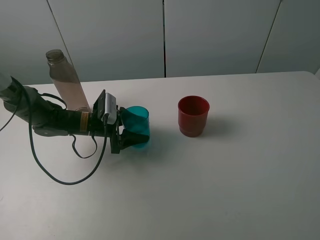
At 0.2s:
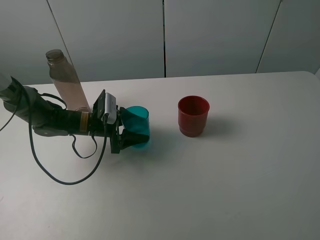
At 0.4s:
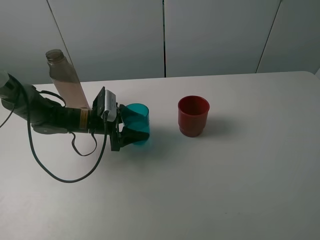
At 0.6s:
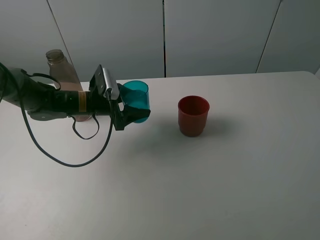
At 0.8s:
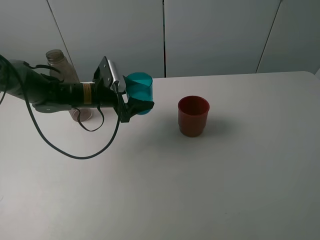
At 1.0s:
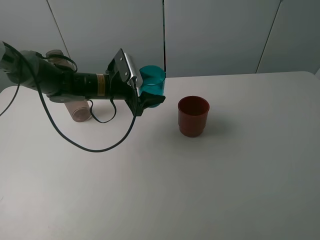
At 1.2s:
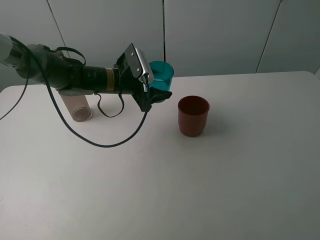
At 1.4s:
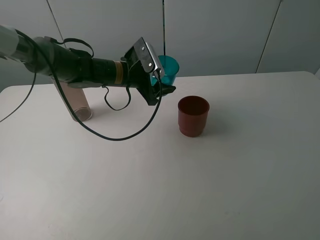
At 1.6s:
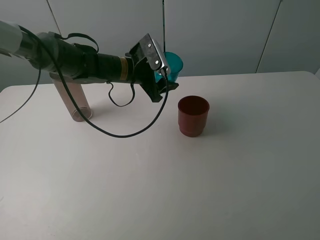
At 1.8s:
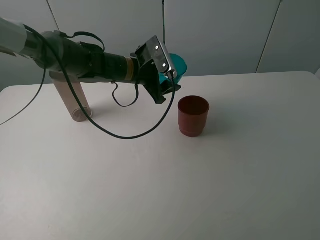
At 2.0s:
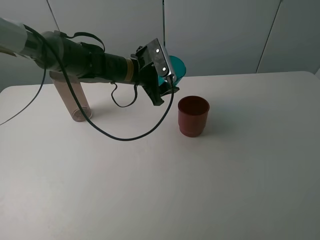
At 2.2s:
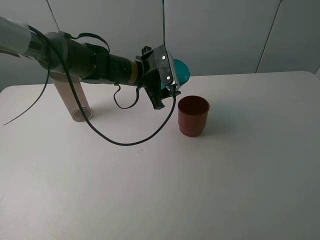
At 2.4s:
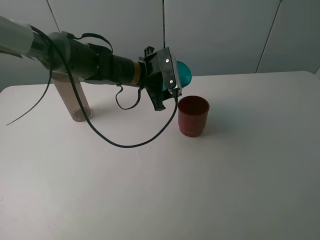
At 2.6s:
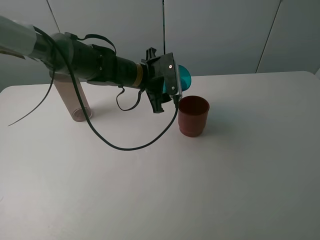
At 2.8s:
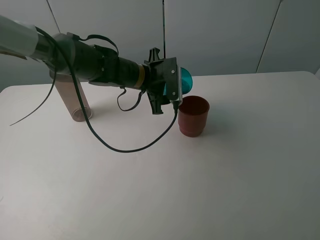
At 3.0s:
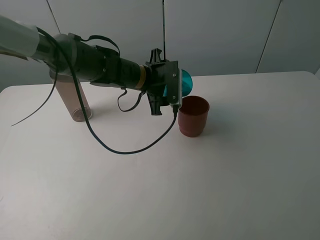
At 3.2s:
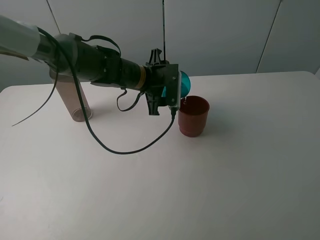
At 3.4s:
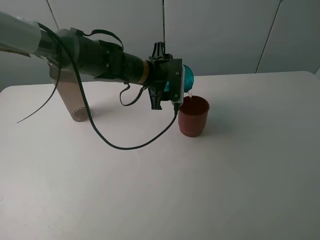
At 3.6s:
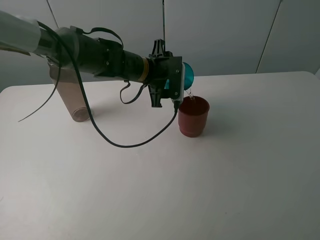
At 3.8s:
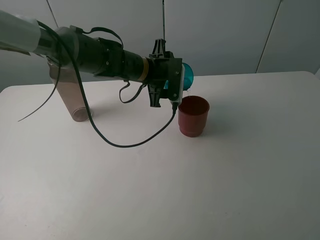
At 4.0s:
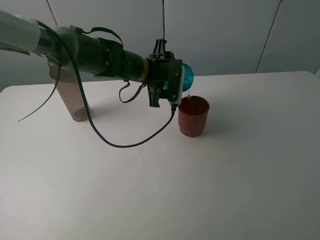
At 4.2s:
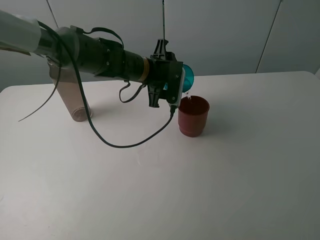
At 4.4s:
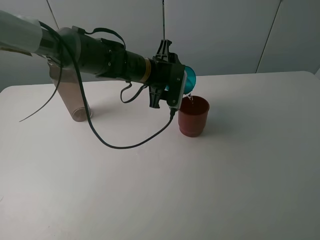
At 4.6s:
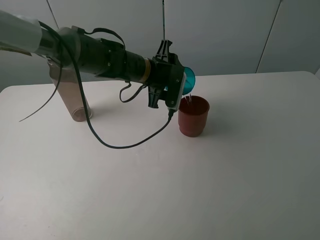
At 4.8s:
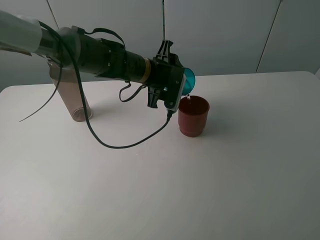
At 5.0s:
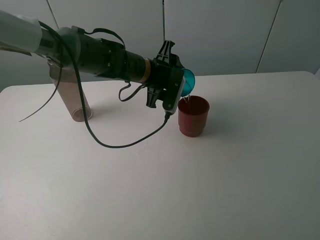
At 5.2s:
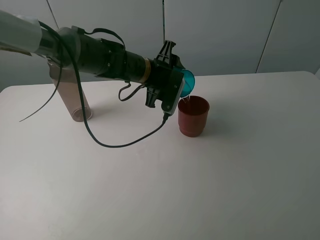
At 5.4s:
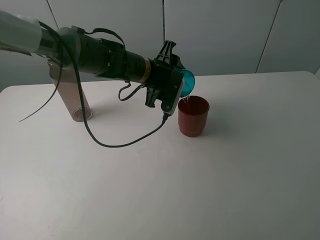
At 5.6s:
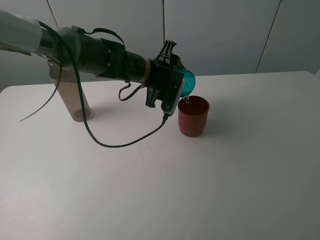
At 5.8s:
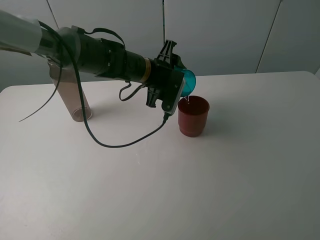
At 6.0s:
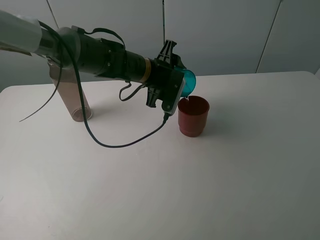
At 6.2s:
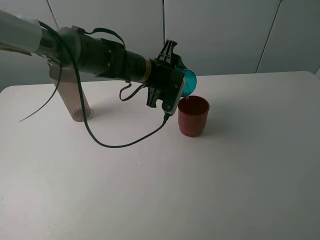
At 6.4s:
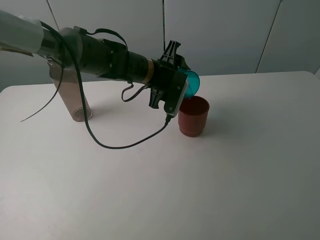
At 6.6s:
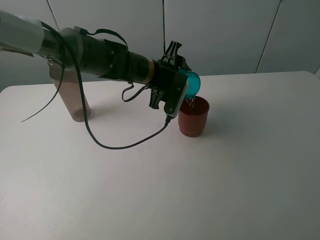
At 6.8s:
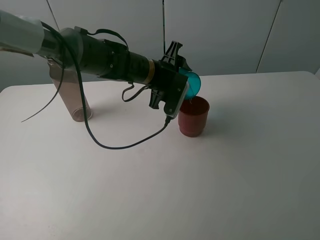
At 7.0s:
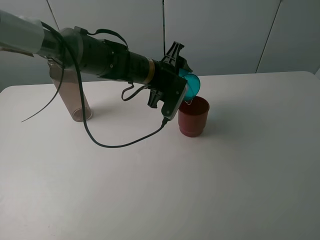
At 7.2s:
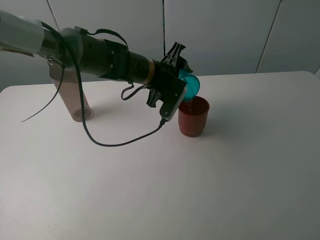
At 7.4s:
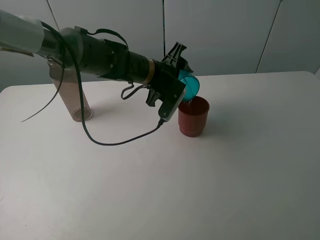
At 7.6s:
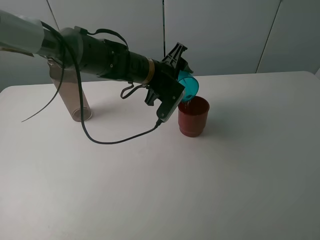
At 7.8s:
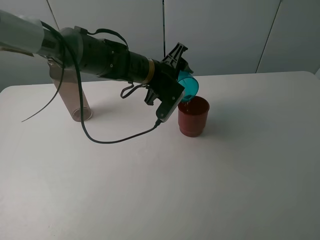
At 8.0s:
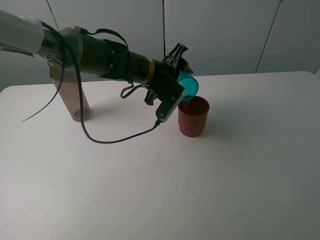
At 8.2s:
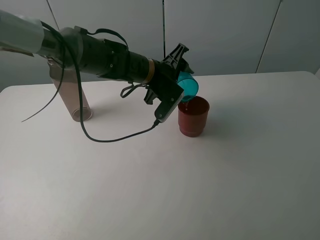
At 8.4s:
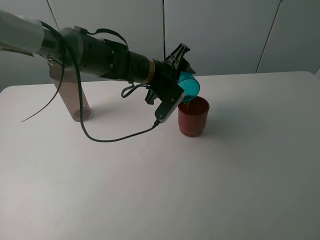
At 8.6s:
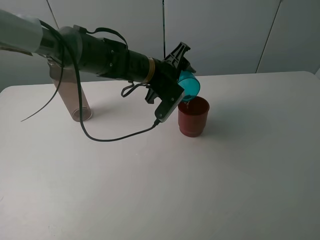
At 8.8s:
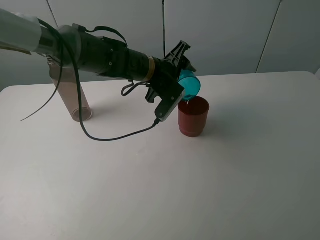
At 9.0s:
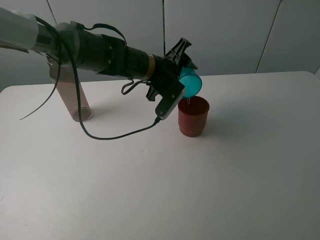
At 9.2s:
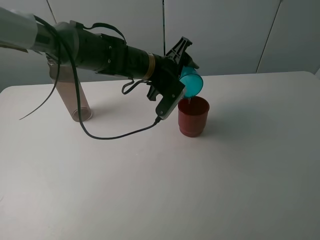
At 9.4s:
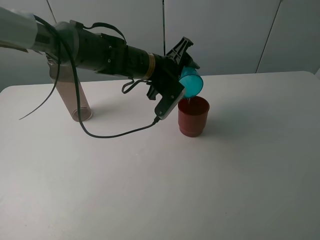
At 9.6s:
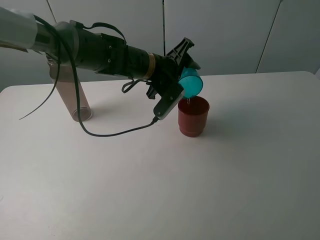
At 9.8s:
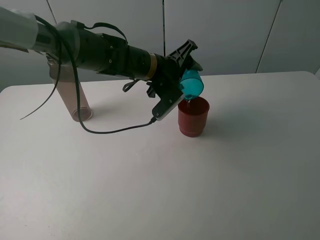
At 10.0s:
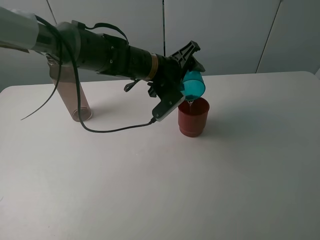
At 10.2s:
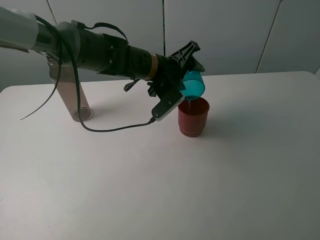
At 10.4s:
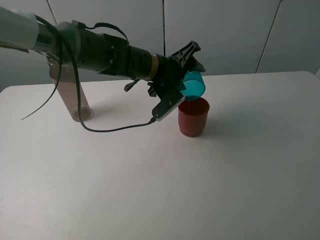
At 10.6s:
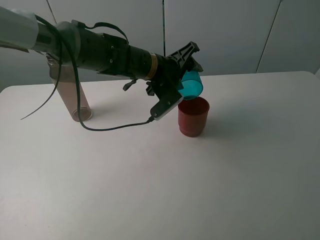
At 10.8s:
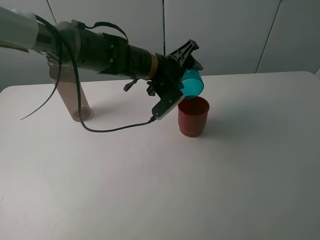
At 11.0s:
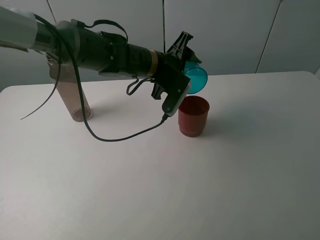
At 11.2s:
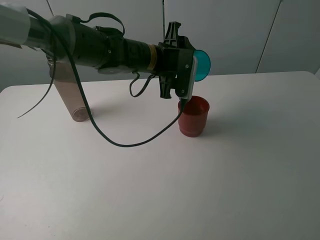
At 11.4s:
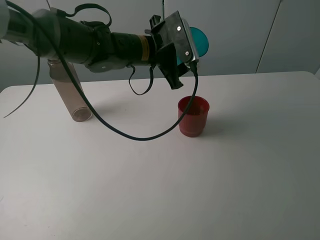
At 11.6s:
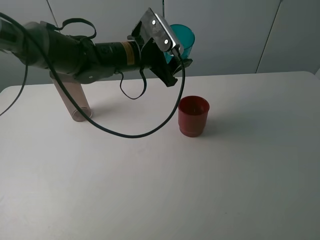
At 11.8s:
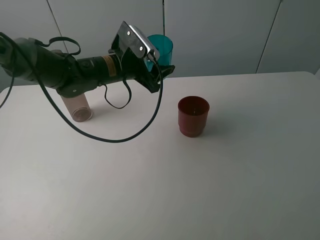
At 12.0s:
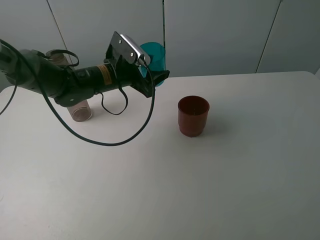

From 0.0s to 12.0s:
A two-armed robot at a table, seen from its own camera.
Task of the whole recording: pick up the bottle and pour water into the cup, then pick up the cup containing water and pour it into another cup.
Step, from 0.0s to 11.0s: Pour water from blue cup to red cup with the left gripper.
From 0.0s to 1.6s: The left gripper is displaced upward, to the right and forward by some 15 cm.
From 3.0s to 4.4s: The grippers move only a little.
From 4.4s to 6.0s: The grippers stay close to where they were, moving slightly.
From 6.0s to 7.6s: The grippers make only small movements.
From 7.6s to 10.4s: There are only small adjustments of the grippers.
From 10.4s to 12.0s: The left gripper travels to the left by approximately 10 cm.

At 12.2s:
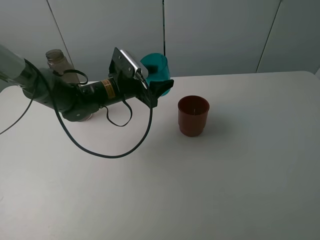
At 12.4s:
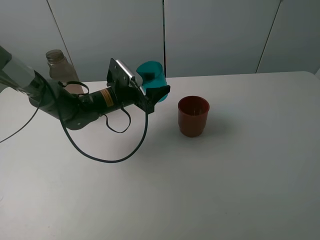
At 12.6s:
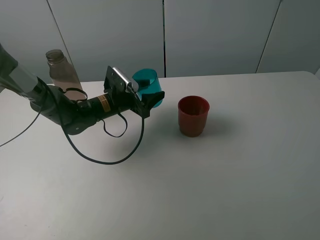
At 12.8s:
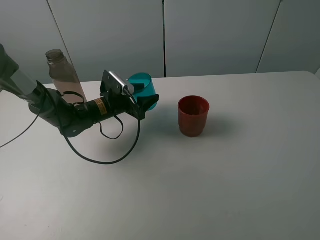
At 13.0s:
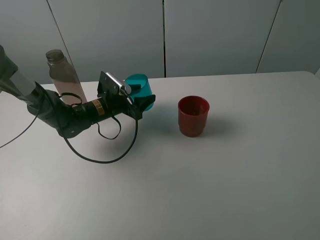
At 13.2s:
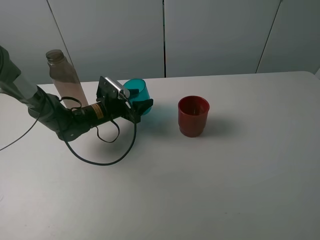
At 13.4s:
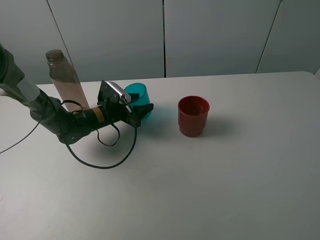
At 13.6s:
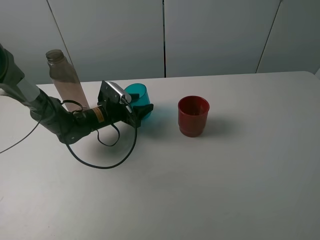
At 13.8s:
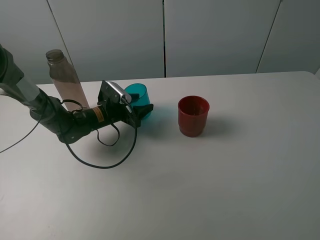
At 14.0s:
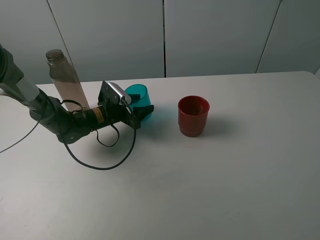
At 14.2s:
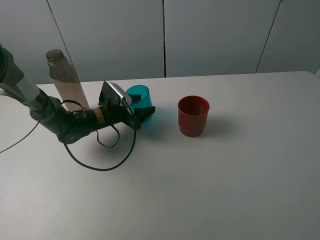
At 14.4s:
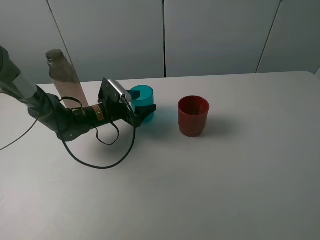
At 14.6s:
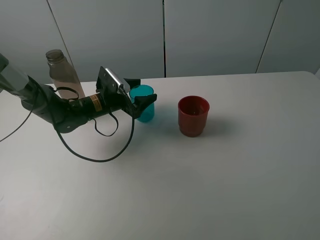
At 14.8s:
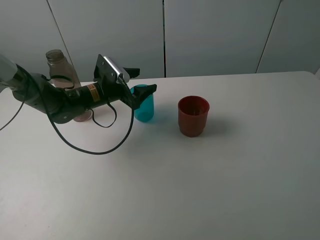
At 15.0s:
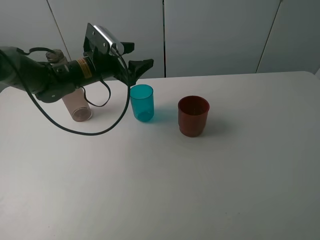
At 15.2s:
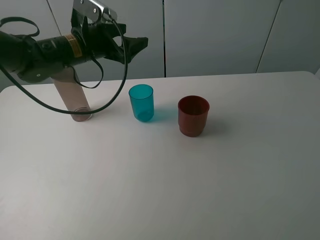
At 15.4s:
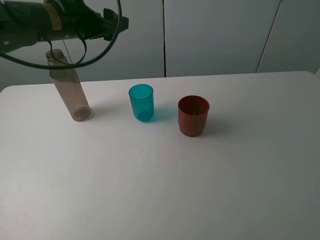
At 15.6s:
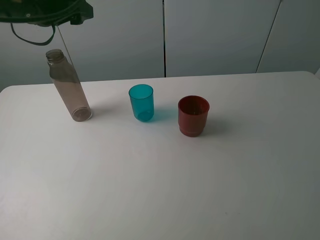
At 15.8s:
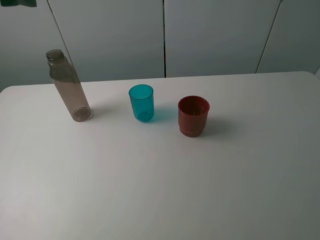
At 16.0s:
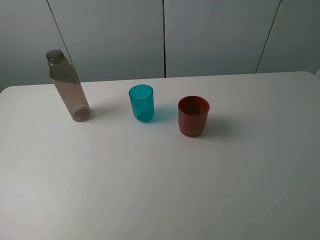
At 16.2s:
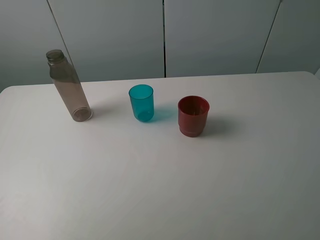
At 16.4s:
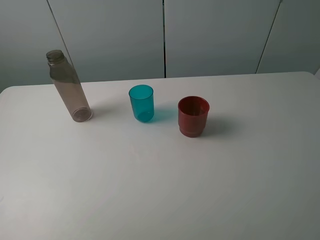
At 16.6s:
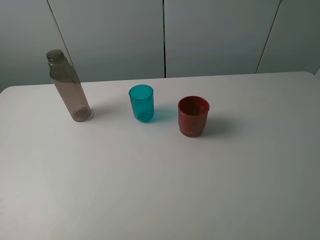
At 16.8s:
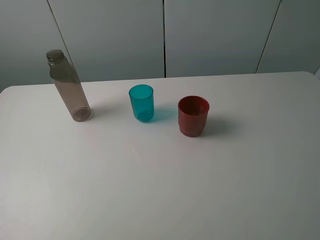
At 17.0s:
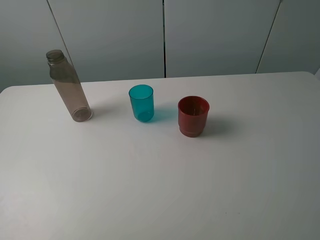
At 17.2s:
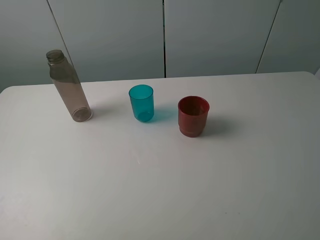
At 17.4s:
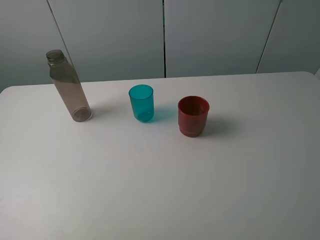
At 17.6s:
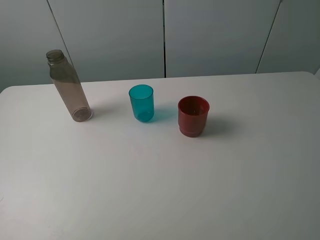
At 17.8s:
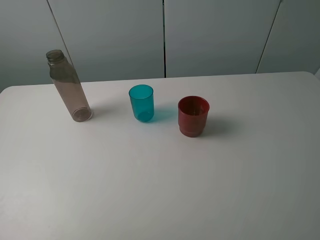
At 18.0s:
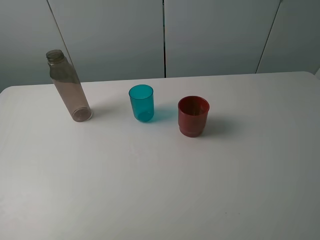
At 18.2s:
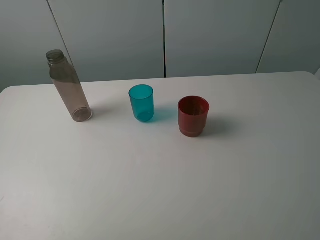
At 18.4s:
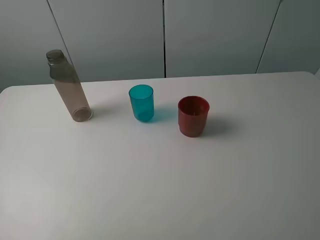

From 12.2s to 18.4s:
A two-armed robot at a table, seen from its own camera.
Task of the whole recording: pick up the bottle and pour water into the cup, then pick up the cup containing water and pour it into another cup.
Step, from 12.2s to 14.8s: Place the blue cup with the left gripper.
From 12.2s to 13.8s: The left gripper goes some 10 cm downward.
From 13.8s to 15.4s: The left gripper is displaced upward by approximately 25 cm, and opens its fingers.
From 15.4s to 16.8s: The left gripper is displaced backward by about 40 cm.

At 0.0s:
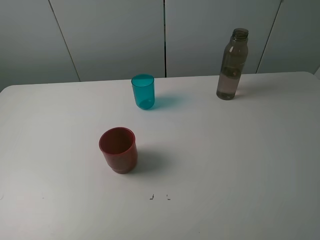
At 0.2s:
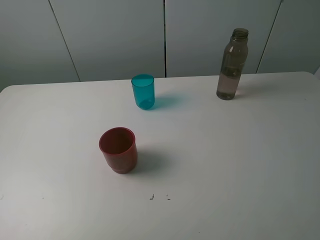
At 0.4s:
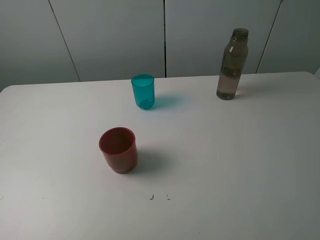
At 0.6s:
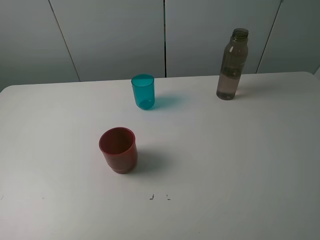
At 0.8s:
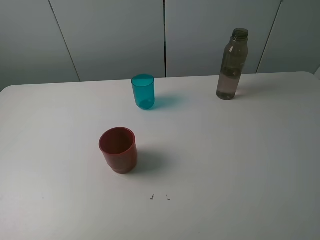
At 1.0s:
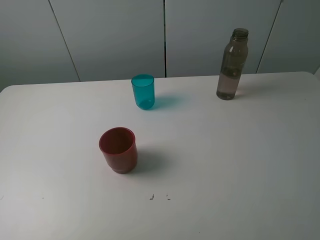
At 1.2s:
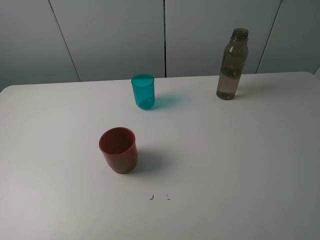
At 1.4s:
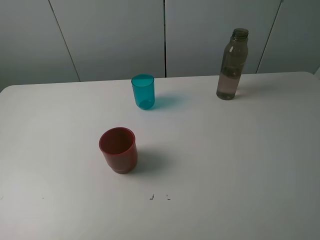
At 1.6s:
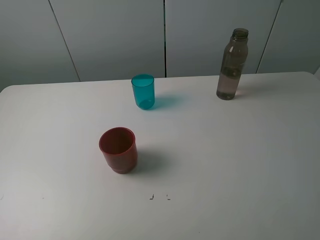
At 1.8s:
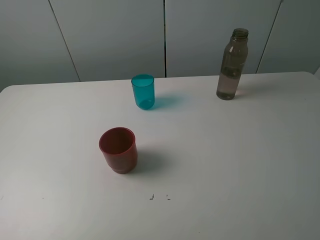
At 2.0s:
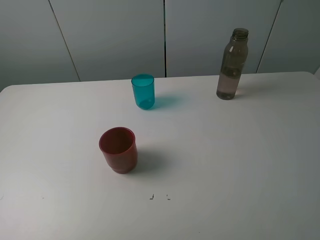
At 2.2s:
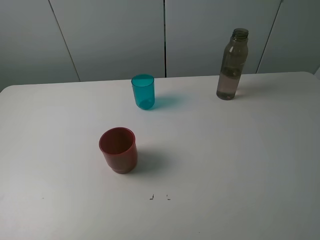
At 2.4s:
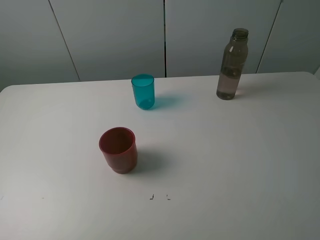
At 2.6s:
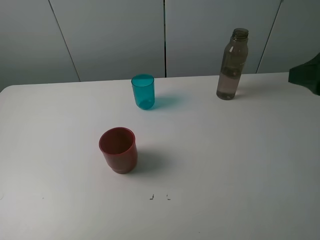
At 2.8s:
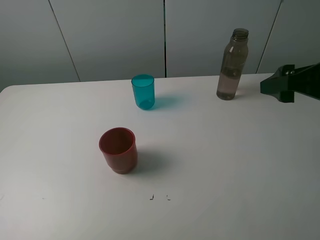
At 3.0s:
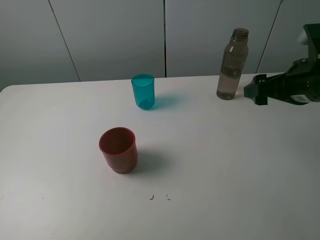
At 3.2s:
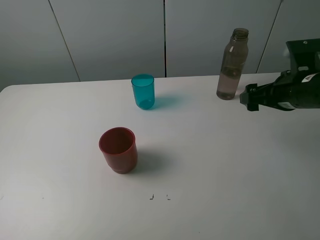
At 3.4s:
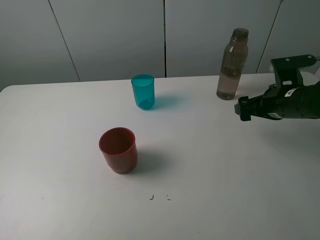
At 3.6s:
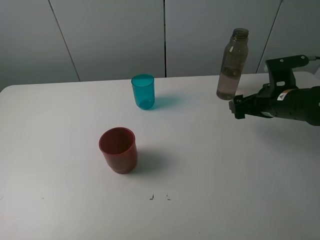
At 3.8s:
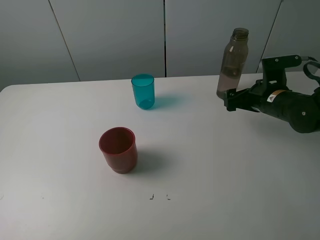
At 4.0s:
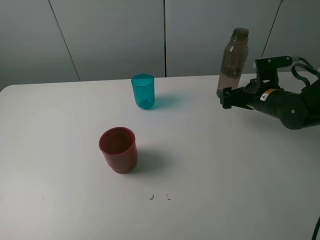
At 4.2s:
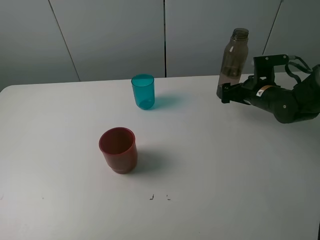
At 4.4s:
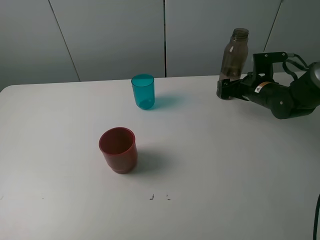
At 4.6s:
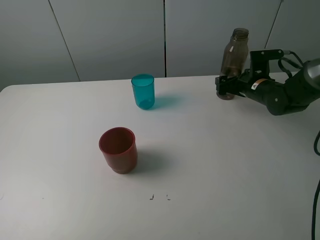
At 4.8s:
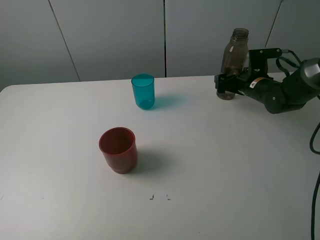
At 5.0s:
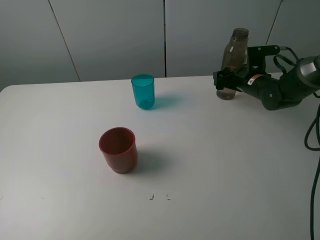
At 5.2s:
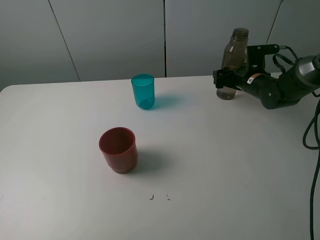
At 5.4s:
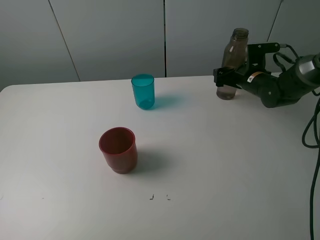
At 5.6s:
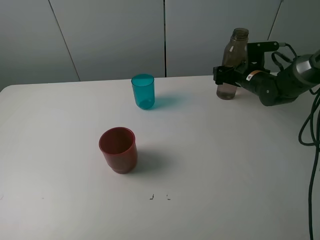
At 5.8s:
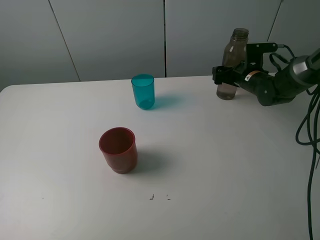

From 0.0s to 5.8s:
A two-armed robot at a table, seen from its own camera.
Task of the whole recording: pick up the bottle and pour water into the cup, then pick up the cup containing water and pour it into another cup.
From 0.0s to 1.4s: Both grippers stay about where they are.
From 1.4s to 2.8s: The right gripper moves forward, roughly 20 cm.
From 2.8s to 4.4s: The right gripper is displaced forward and downward by roughly 25 cm.
From 4.4s to 5.8s: The right gripper moves forward, some 5 cm.
